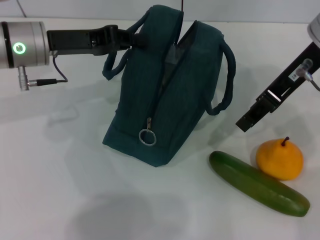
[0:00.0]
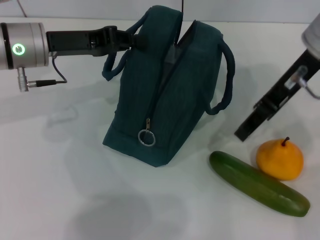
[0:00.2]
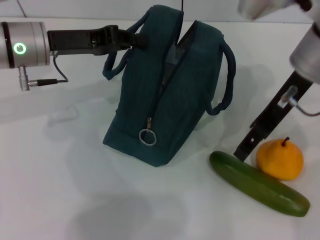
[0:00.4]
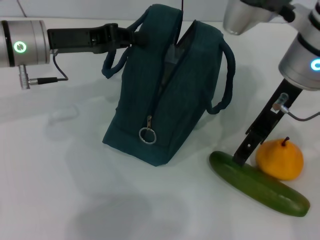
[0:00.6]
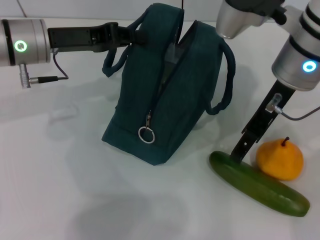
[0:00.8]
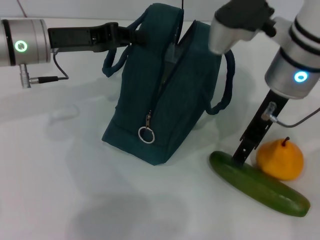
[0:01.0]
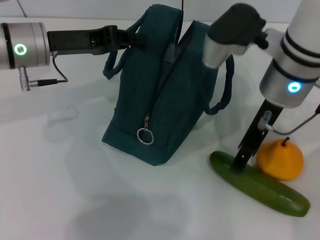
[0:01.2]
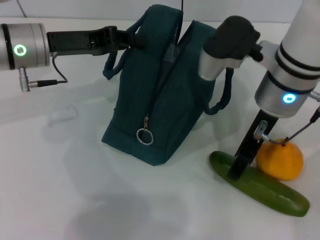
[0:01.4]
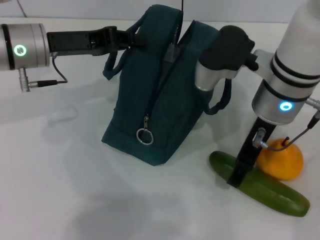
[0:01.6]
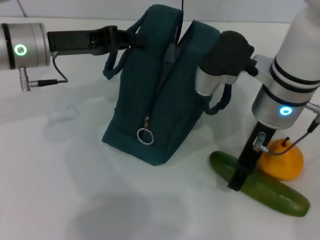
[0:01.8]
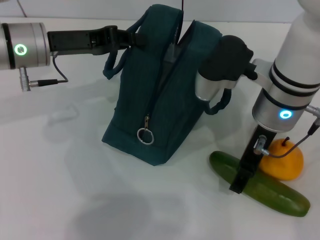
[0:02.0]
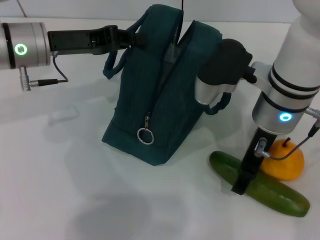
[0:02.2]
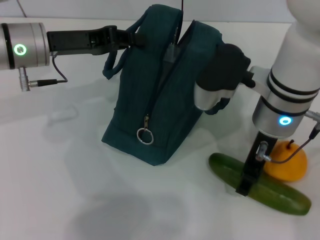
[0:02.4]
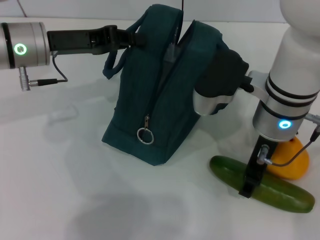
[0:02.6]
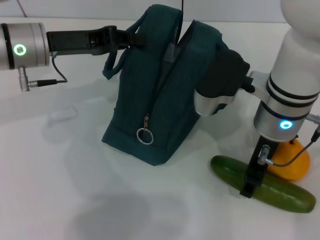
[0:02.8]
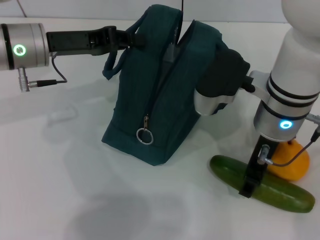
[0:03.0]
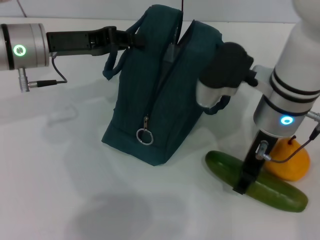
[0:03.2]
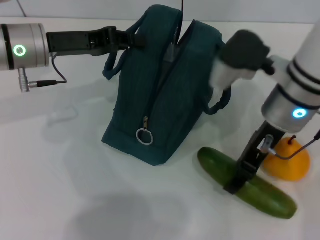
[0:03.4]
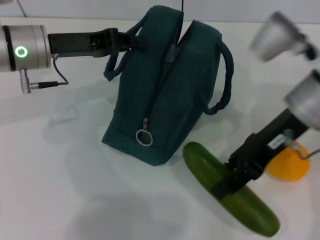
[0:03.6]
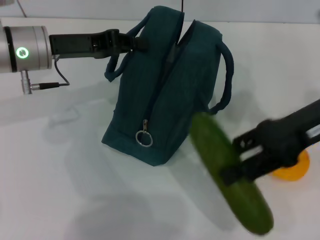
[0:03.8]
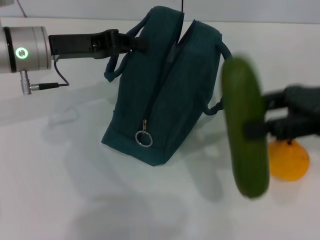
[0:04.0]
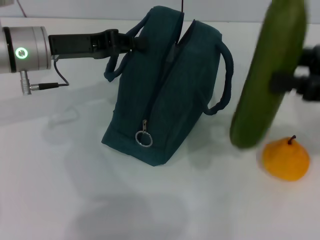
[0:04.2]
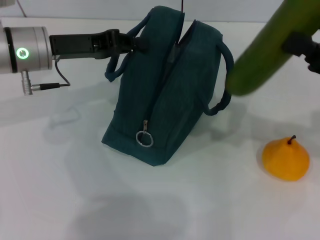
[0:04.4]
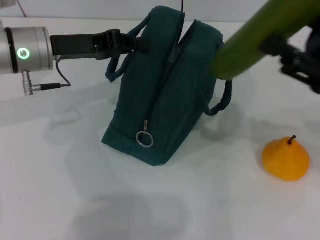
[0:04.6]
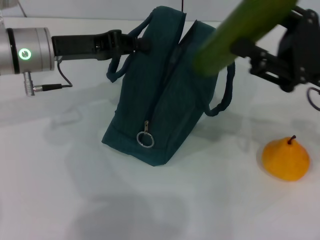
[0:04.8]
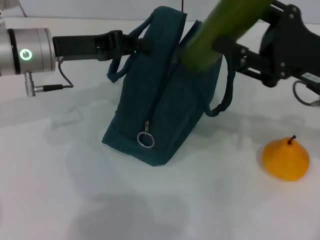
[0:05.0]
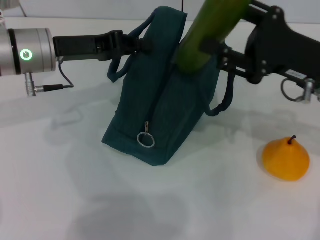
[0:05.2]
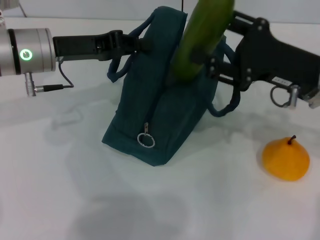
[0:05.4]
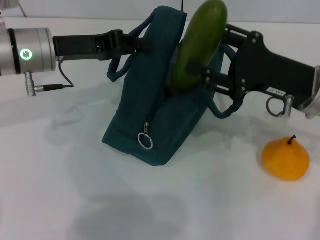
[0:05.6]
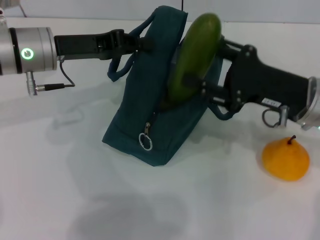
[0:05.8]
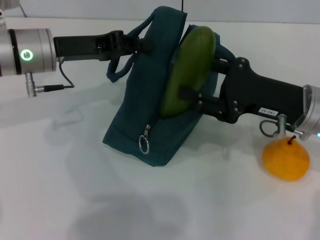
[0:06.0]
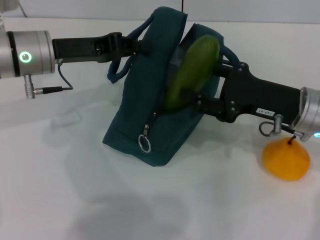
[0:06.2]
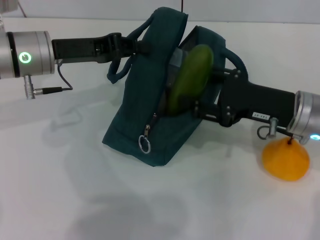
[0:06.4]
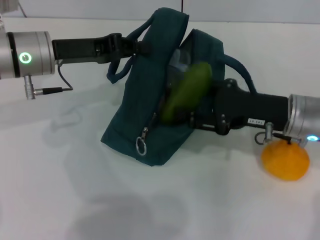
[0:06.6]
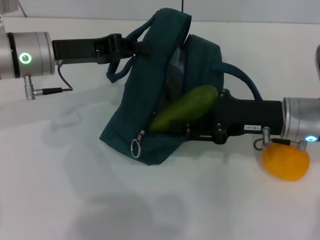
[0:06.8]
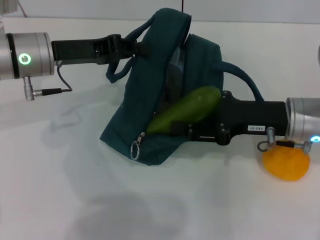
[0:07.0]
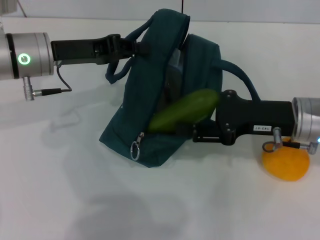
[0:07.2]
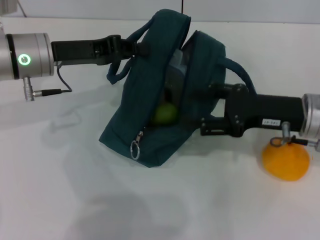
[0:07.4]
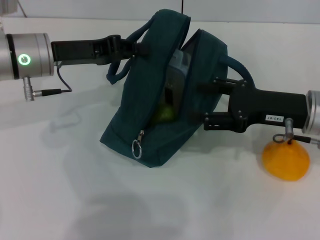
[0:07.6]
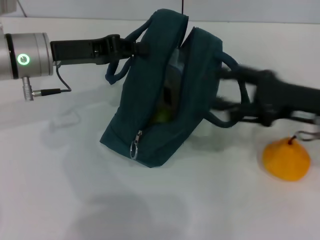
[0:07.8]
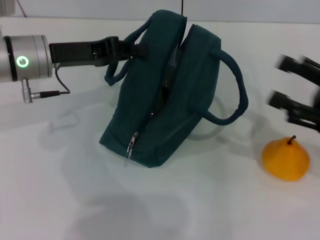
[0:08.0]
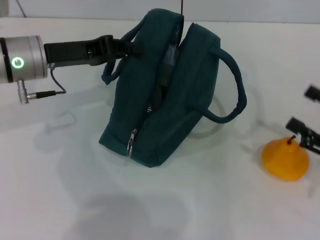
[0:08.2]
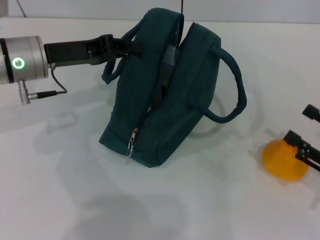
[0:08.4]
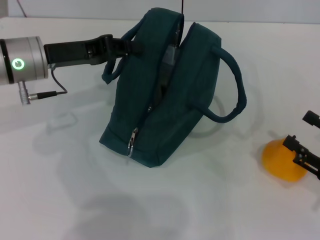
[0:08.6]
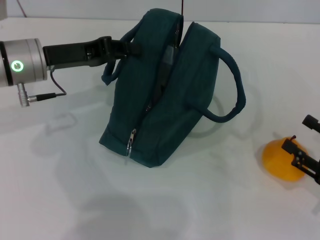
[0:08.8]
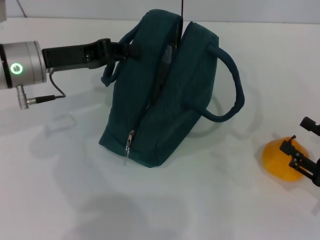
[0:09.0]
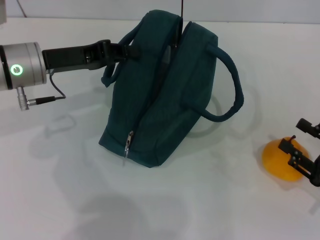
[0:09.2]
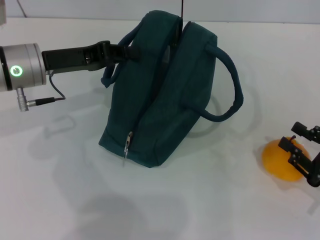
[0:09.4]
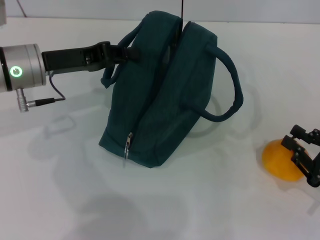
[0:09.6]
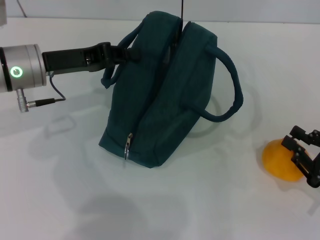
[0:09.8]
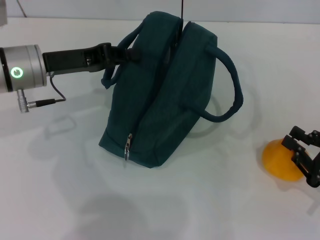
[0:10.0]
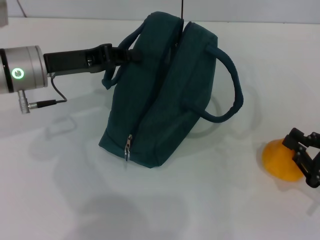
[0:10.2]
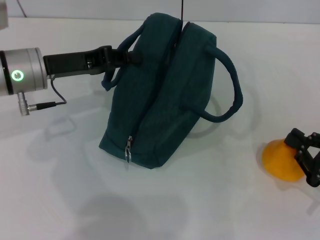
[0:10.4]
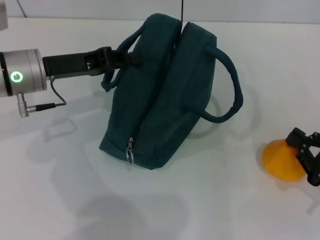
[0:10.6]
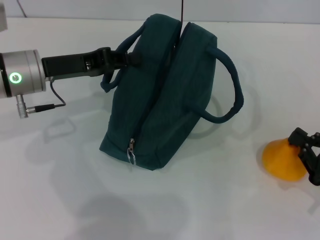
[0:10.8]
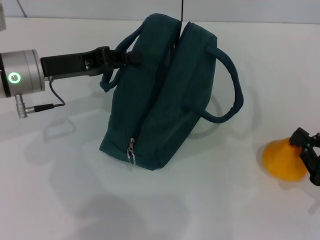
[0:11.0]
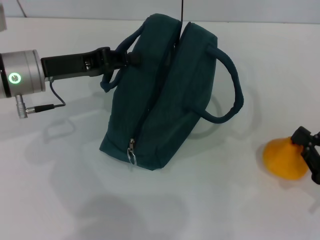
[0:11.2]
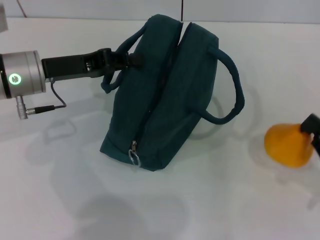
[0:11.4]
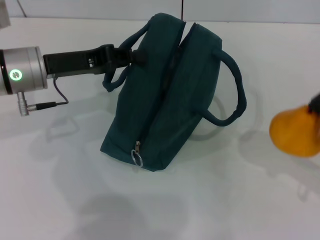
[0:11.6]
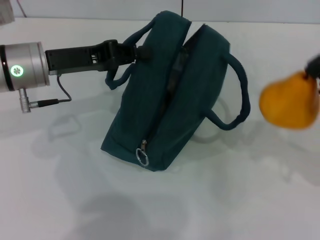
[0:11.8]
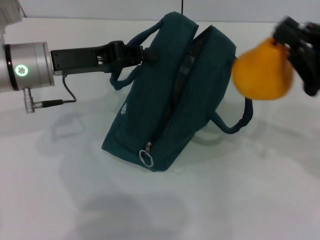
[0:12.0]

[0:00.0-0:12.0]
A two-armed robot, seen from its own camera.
Step, 0:00.0 to 0:02.8: Pick up the cucumber with your right hand.
Step, 0:03.0 to 0:07.4: Put the cucumber into the lunch bag with your right hand.
Step, 0:07.6 to 0:10.8: Grab the pear with your right hand.
0:00.0 to 0:01.6: The right gripper shifts about 10 cm downward and to the left.
0:01.6 to 0:03.0: The grippers move only a little.
0:03.0 to 0:04.4: The right gripper travels to the right by roughly 20 cm.
0:04.4 to 0:06.0: The right gripper travels to the left and downward by approximately 10 cm.
0:07.6 to 0:09.0: The right gripper is displaced backward, to the right and downward by approximately 20 cm.
0:09.0 to 0:10.4: The right gripper closes its fingers.
0:10.4 to 0:12.0: The right gripper travels upward, forward and to the left by some 15 cm.

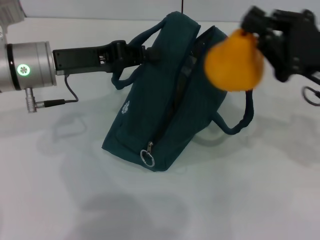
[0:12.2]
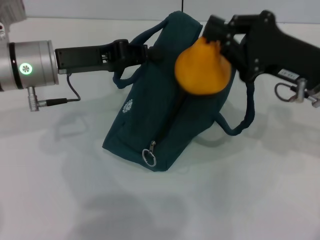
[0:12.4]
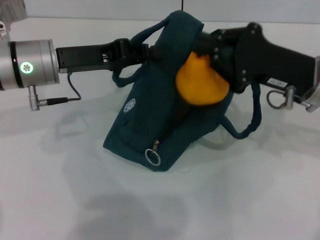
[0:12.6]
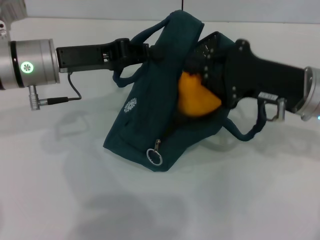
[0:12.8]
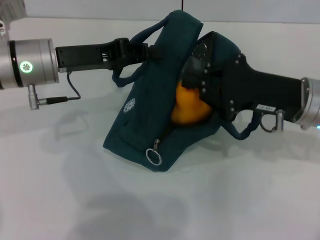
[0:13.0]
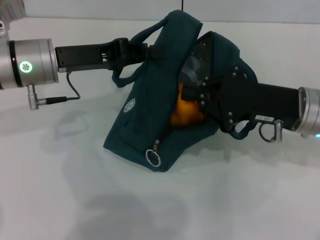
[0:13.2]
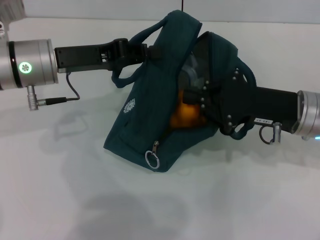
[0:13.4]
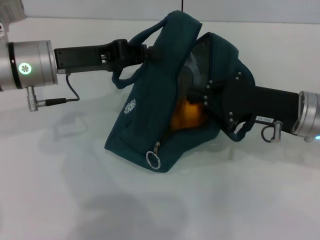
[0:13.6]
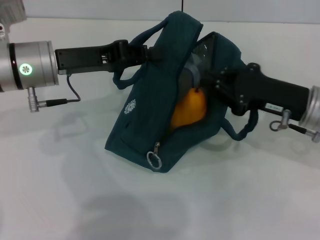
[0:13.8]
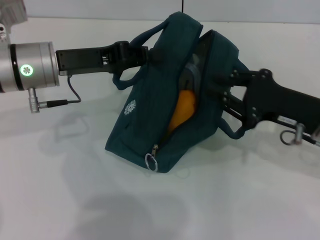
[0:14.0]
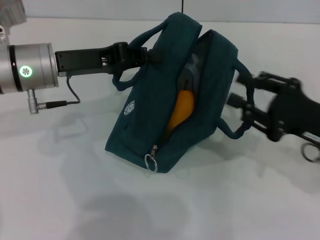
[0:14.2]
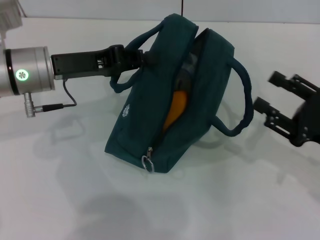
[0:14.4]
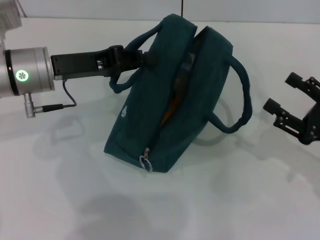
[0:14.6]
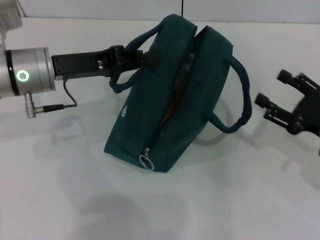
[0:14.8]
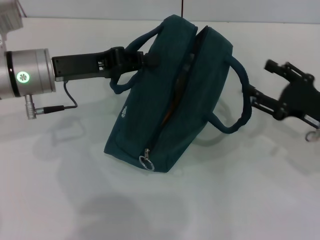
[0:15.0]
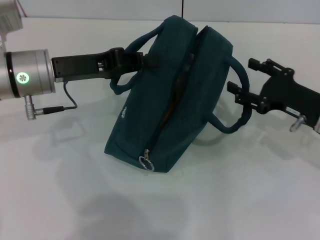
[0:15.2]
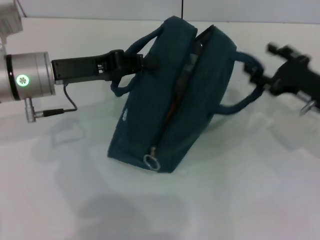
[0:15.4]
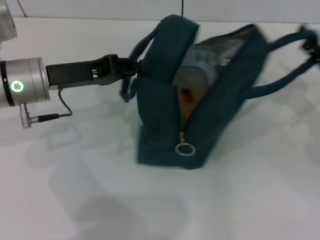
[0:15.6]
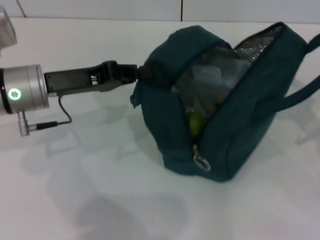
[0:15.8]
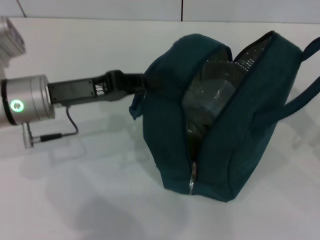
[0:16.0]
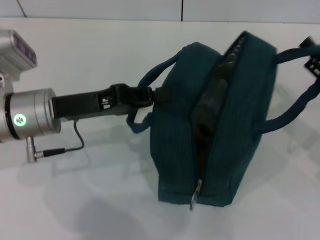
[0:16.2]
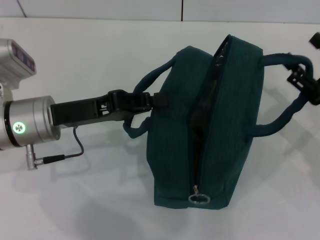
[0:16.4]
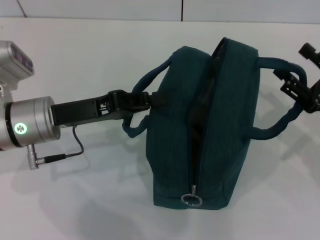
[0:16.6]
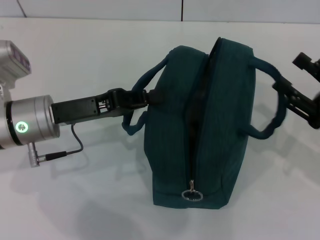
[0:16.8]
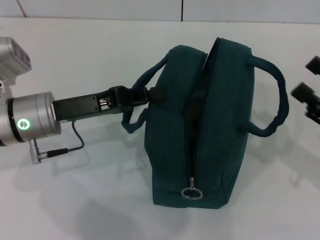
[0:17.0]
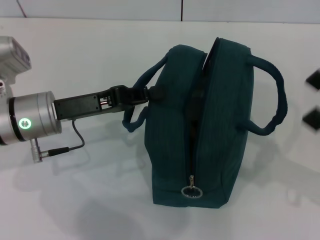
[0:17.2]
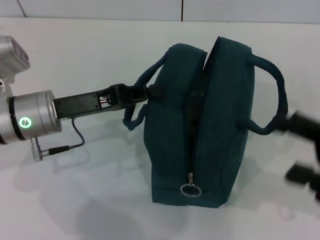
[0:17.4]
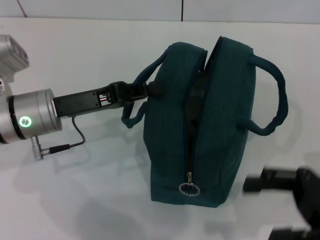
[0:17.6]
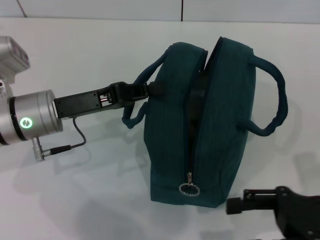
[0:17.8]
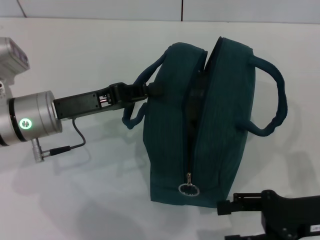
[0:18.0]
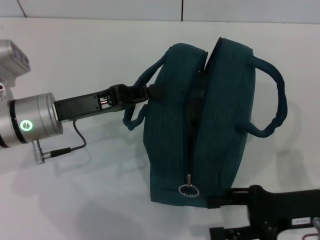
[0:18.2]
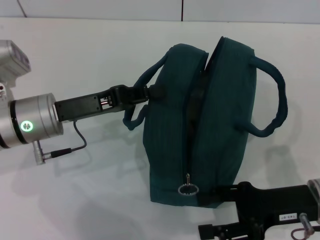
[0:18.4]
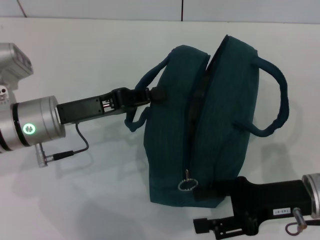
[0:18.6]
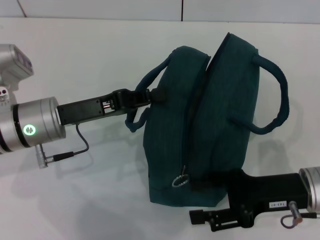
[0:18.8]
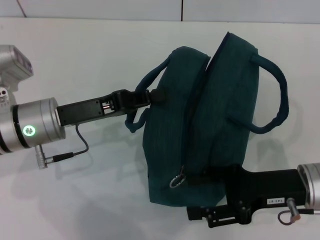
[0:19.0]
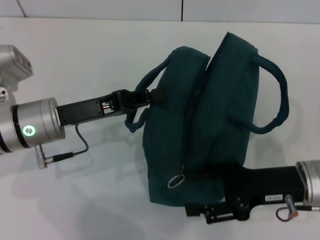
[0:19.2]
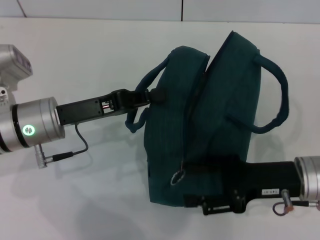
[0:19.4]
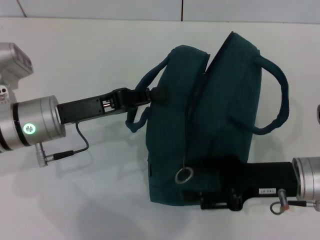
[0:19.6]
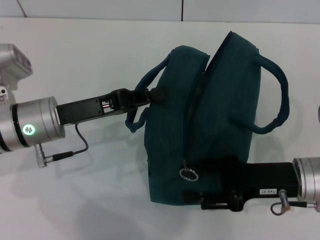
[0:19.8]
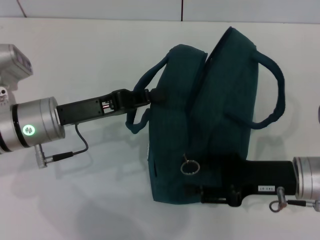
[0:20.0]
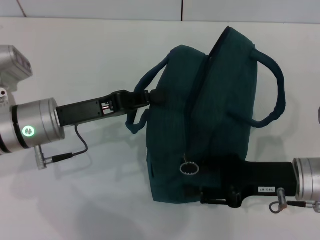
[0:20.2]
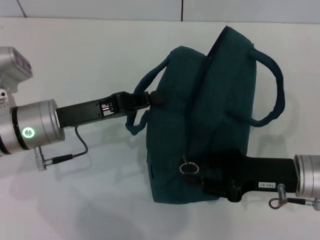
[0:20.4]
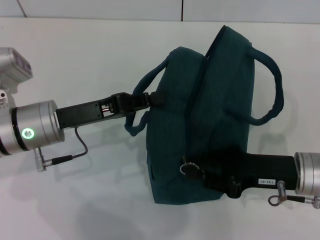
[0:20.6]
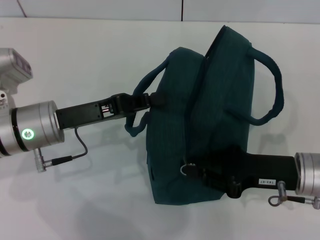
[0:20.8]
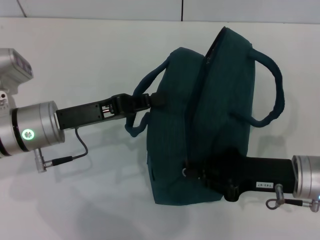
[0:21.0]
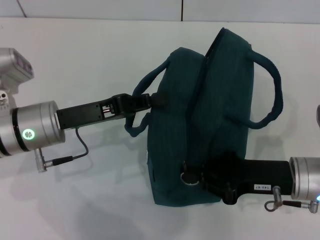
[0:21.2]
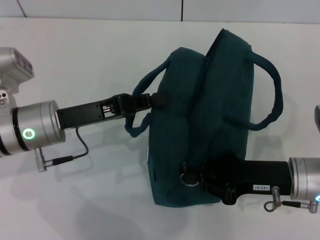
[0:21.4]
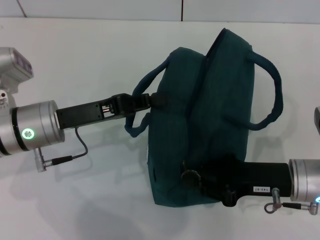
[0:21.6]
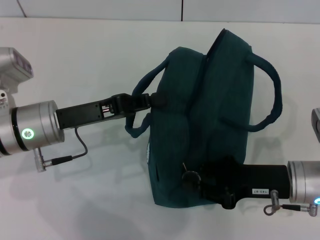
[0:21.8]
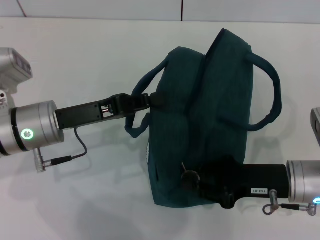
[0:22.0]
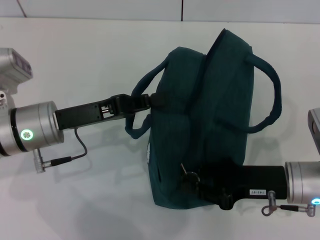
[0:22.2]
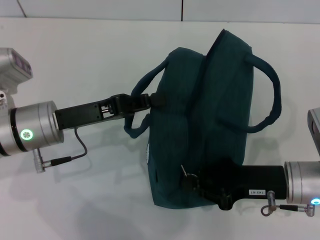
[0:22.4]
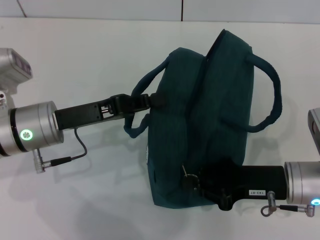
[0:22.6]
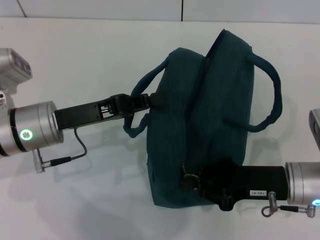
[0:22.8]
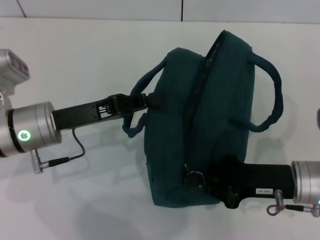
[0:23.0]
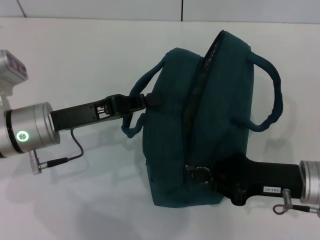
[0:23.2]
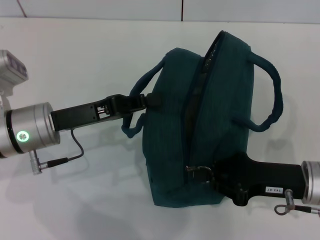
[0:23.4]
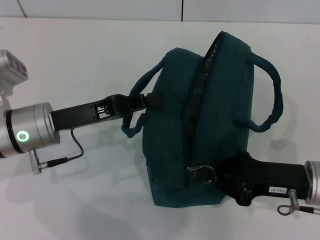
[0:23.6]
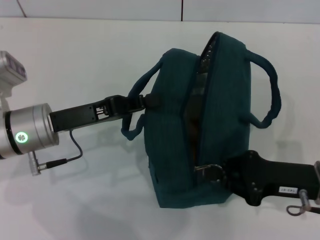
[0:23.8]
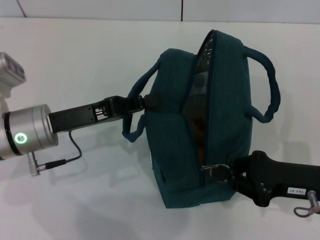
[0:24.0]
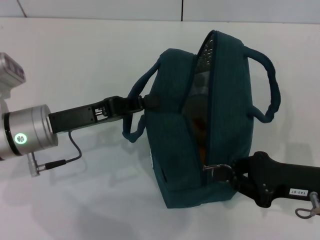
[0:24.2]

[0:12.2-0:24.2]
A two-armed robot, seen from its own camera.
Step, 0:14.0 to 0:16.6: Hold the lunch bag with your right hand.
0:13.8 to 0:15.2: The right gripper opens its fingers.
0:15.2 to 0:16.6: The two grippers go approximately 5 cm backward.
0:16.6 to 0:18.2: The right gripper shifts some 5 cm to the left.
0:18.2 to 0:19.8: There are only small adjustments of the grippers.
0:19.8 to 0:21.2: The right gripper closes its fingers.
0:21.2 to 0:22.6: Neither gripper changes place.
0:22.6 to 0:24.2: The right gripper changes place by roughly 5 cm.
